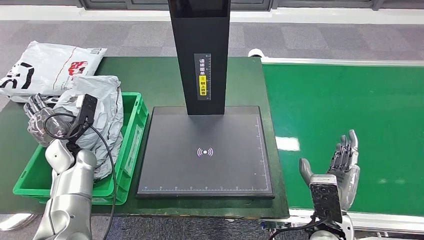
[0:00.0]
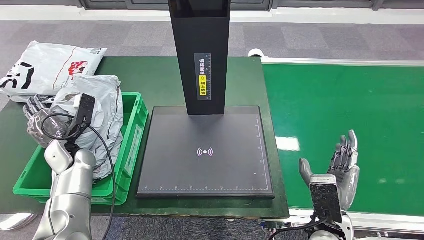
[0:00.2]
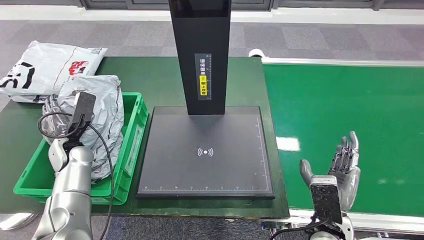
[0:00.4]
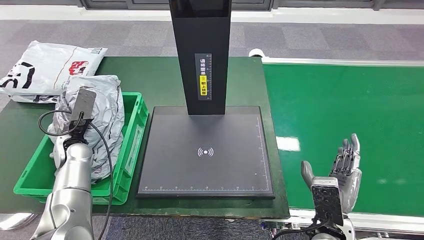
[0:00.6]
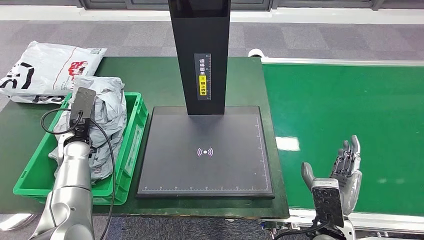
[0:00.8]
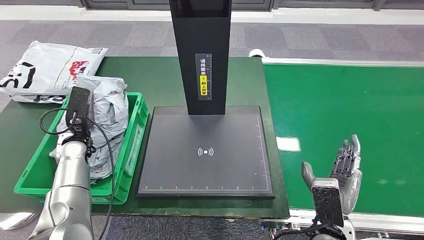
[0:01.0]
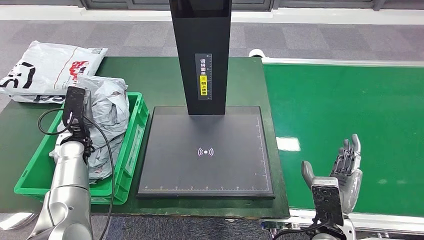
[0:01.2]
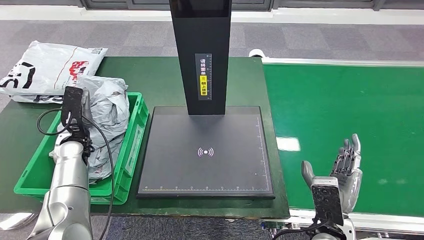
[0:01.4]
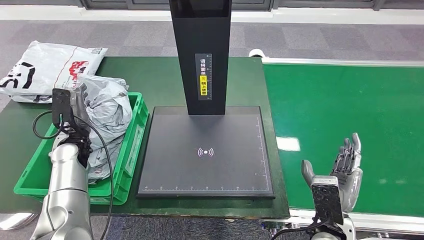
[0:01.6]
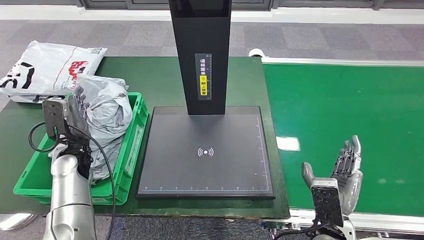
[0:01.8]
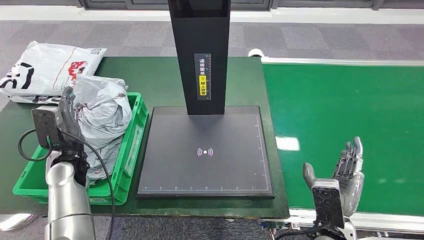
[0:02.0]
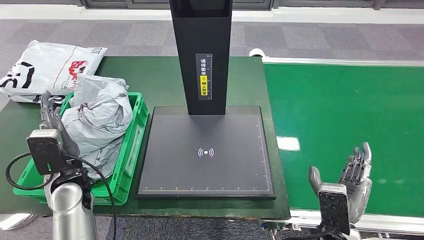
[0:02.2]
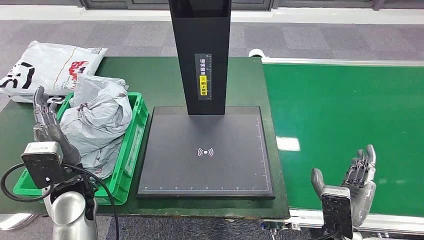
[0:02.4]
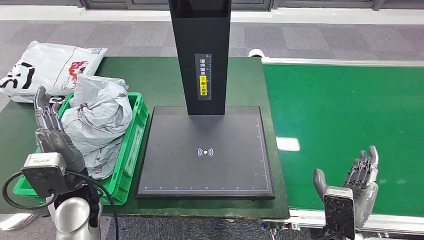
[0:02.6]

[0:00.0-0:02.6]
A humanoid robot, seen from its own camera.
Step, 0:00.0 to 0:02.6: Place the parcel into the delivery box.
0:01.2 to 0:02.6: The left hand shifts about 20 cm backward and to the right.
